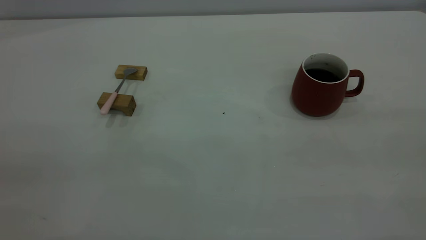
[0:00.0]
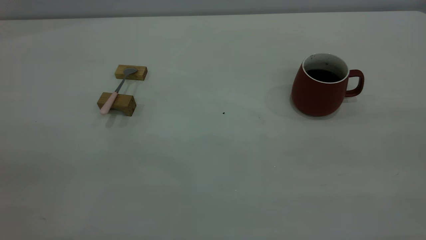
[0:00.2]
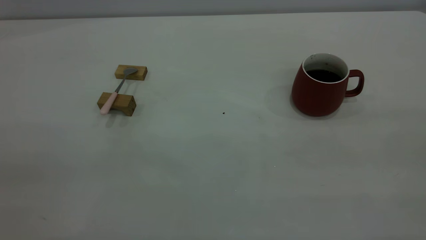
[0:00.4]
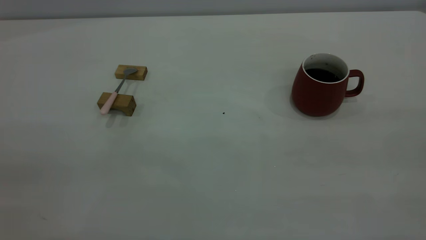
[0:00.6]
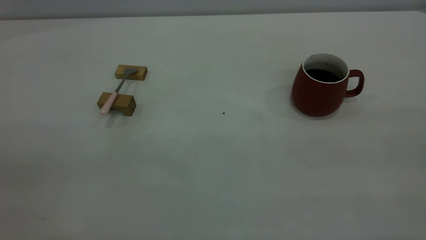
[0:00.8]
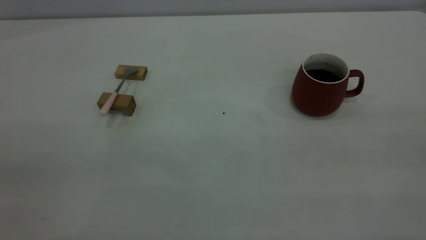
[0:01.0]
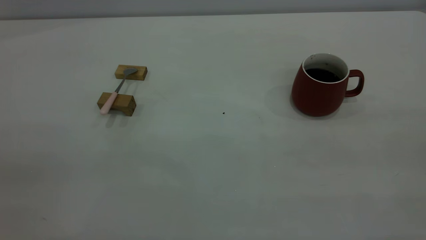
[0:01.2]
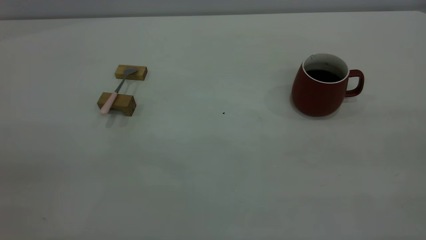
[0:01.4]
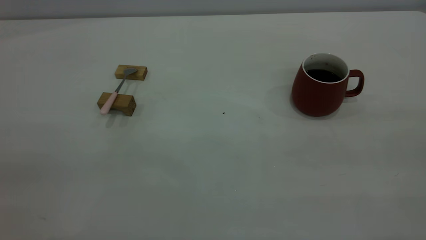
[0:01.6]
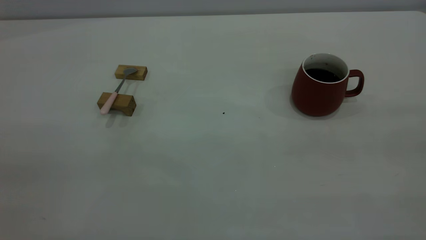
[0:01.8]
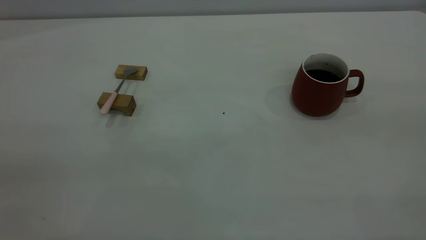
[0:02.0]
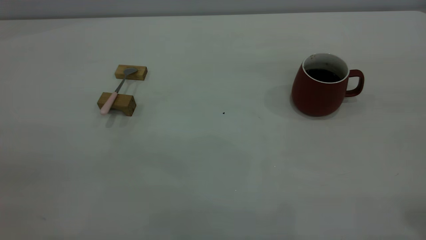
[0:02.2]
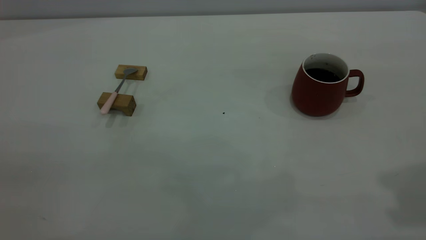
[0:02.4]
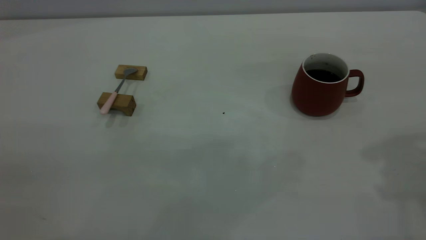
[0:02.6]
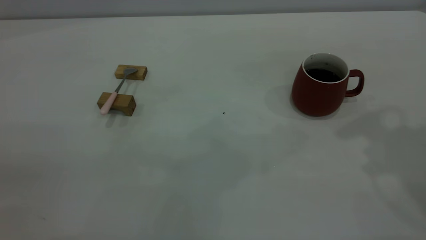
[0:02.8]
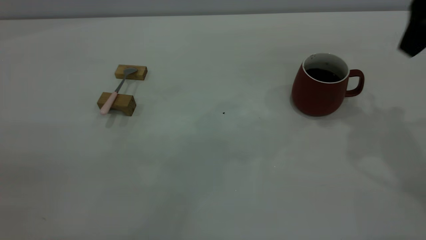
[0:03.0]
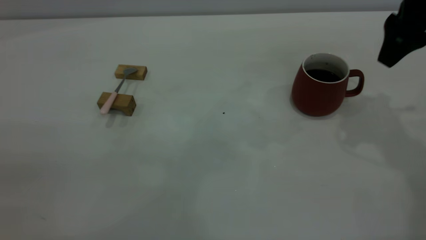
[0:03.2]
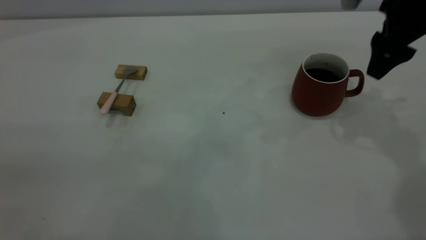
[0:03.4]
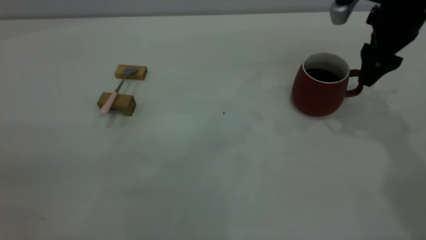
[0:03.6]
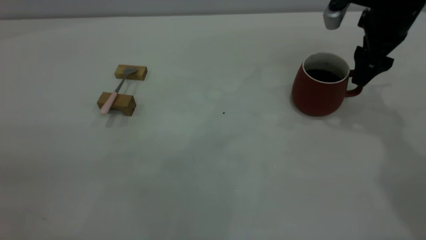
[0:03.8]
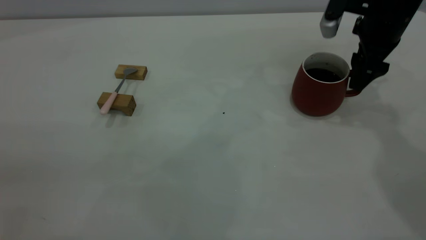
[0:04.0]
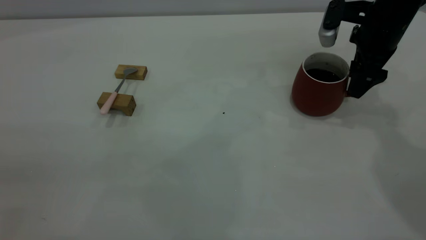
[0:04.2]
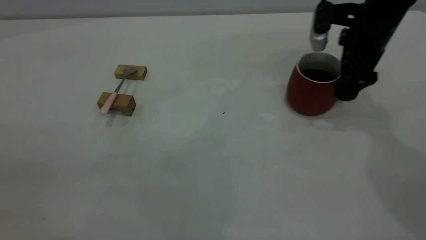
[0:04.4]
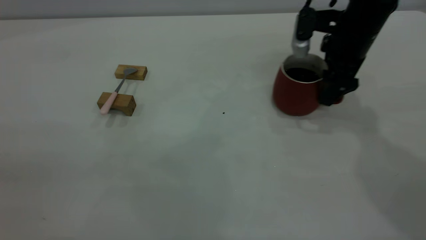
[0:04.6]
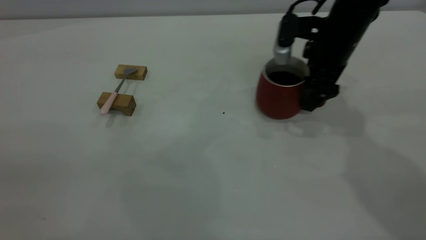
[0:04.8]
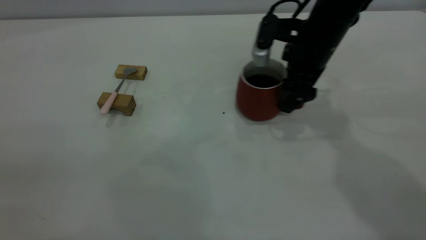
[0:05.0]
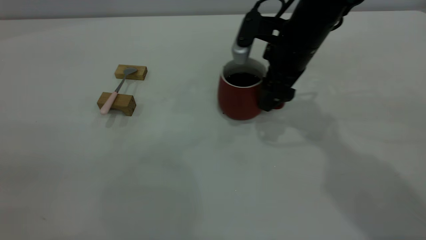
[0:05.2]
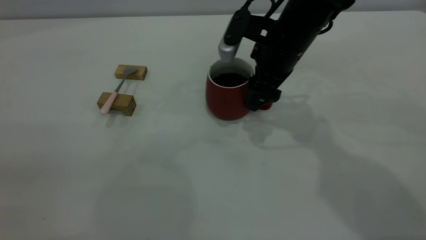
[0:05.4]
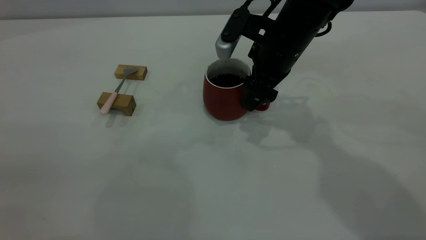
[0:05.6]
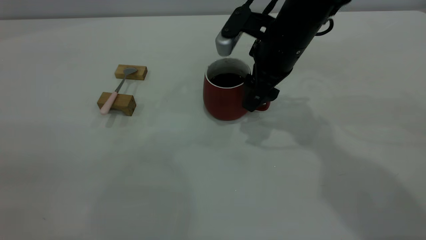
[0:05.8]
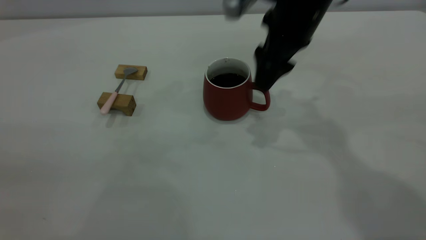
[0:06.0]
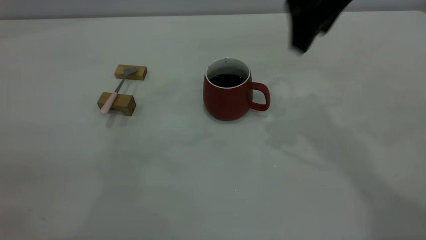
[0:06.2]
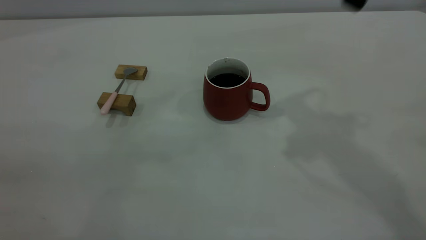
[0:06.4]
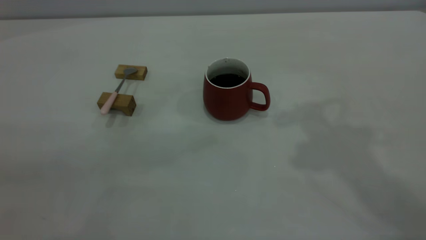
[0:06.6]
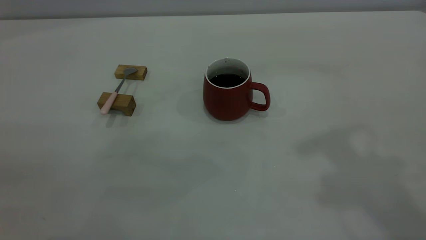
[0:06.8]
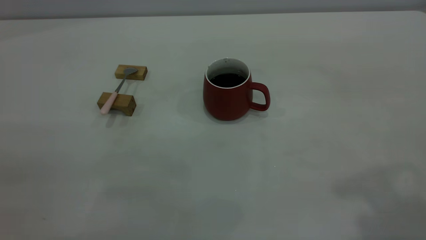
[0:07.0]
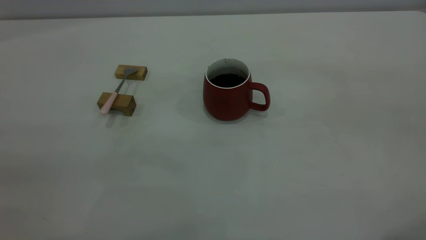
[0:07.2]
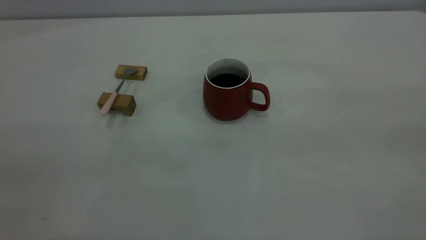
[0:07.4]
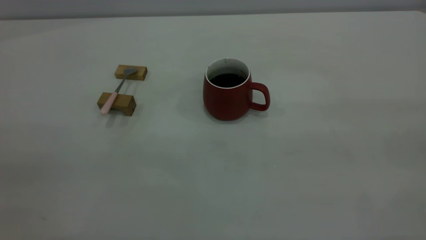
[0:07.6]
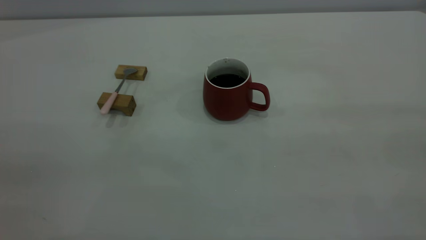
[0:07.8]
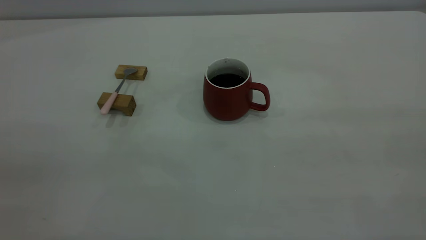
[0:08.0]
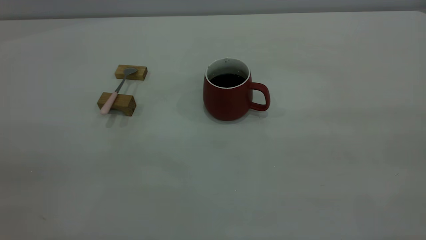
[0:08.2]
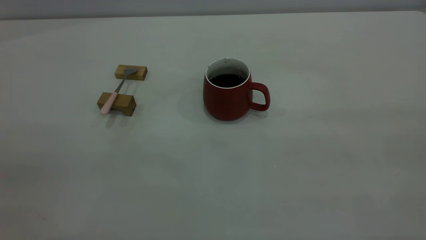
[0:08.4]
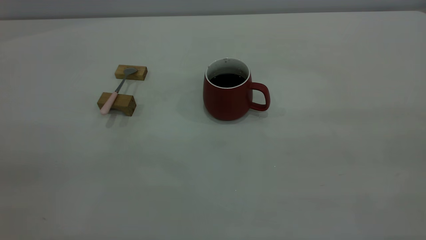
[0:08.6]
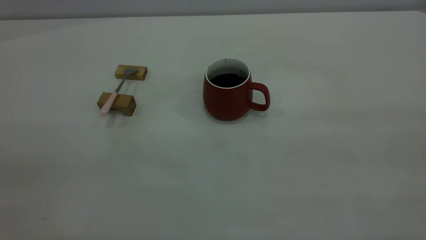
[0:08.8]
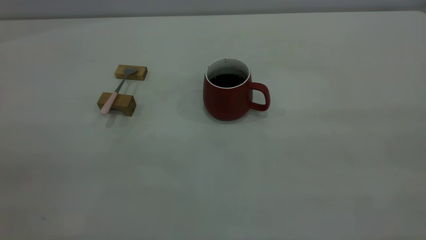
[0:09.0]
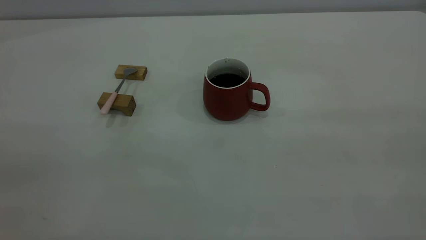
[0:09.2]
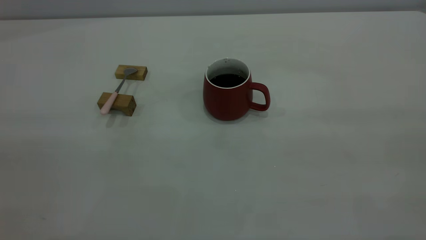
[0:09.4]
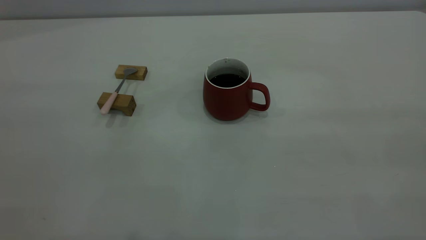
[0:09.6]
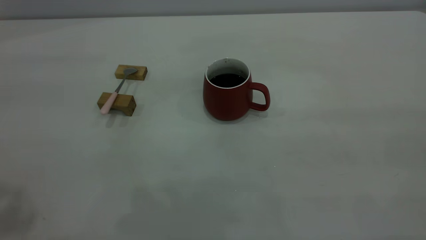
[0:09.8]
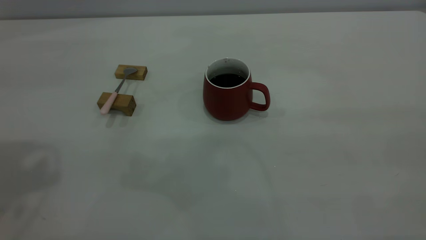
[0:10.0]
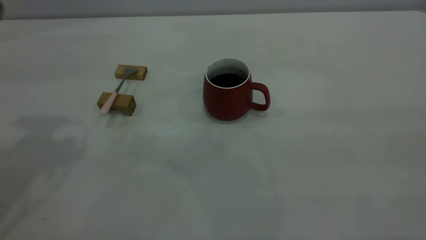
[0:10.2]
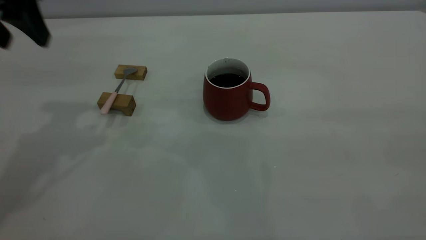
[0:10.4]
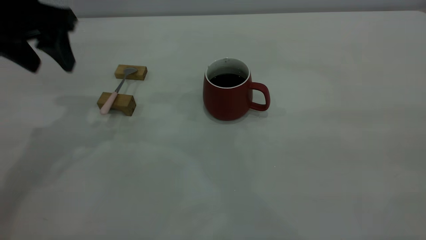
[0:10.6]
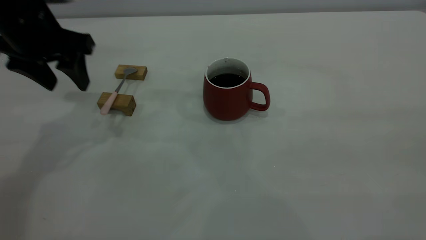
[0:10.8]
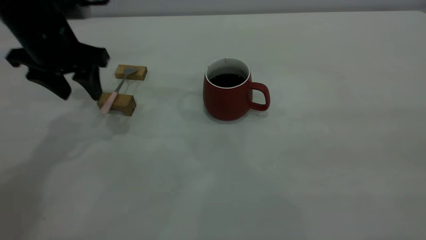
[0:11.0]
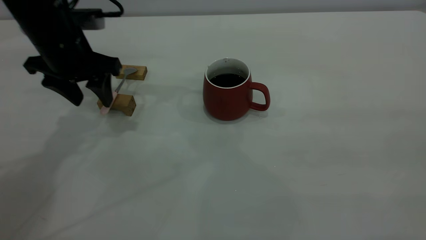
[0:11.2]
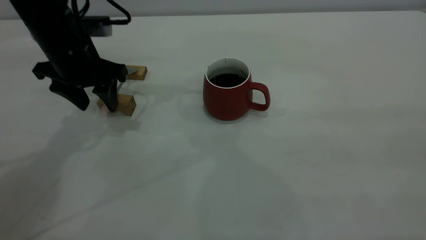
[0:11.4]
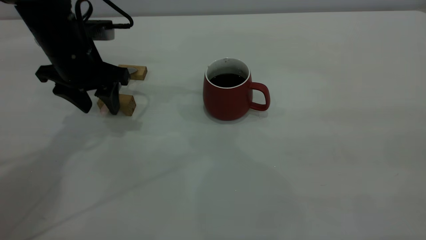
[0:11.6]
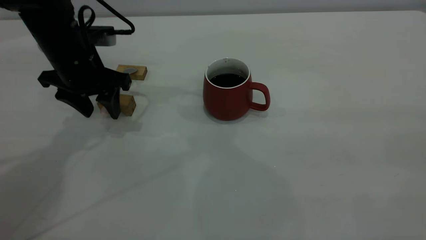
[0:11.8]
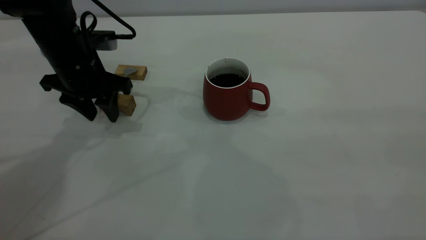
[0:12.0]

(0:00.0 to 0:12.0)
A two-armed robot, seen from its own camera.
Step, 0:00.0 - 0:06.0: Move the cup with coffee to the center of view.
0:00.0 - 0:01.6: The two grippers keep their place.
0:01.6 - 0:03.0: The right gripper goes approximately 35 cm forward.
0:03.0 - 0:04.4: The right gripper shifts some 15 cm downward and forward, and opens its fingers.
0:04.4 - 0:06.0: The right gripper travels to the left and upward by approximately 15 cm, and closes its fingers.
0:06.0 - 0:07.6: The right gripper moves backward, to the right and upward, about 40 cm.
0:09.0 - 0:10.4: The left gripper shifts about 35 cm forward, and opens.
0:10.4 - 0:12.0: The left gripper travels downward by about 15 cm, and closes.

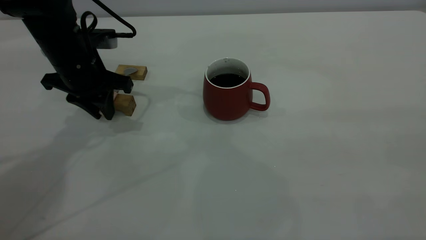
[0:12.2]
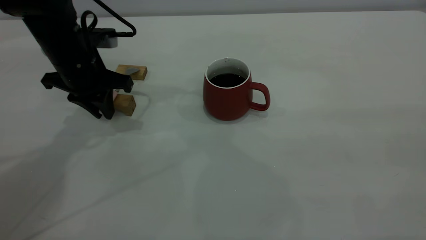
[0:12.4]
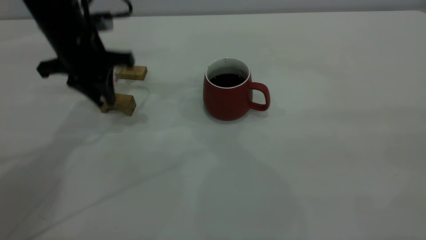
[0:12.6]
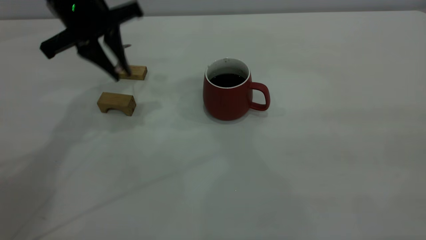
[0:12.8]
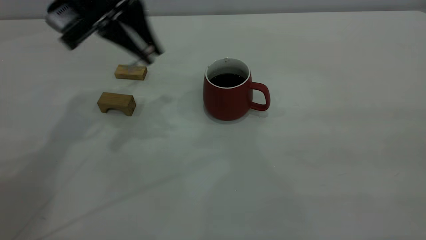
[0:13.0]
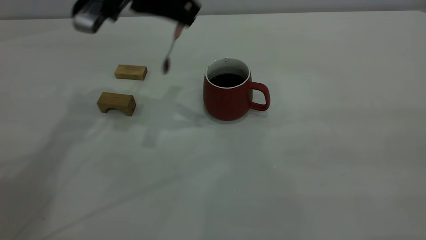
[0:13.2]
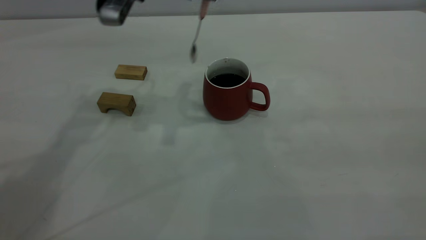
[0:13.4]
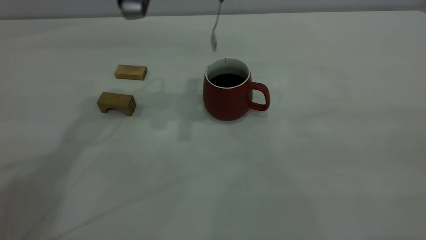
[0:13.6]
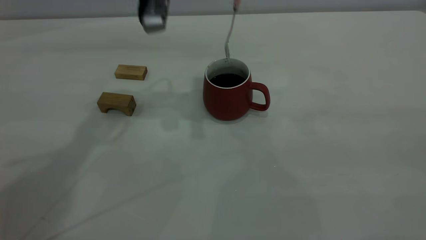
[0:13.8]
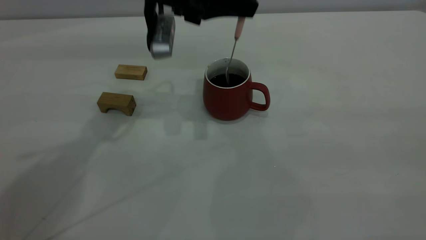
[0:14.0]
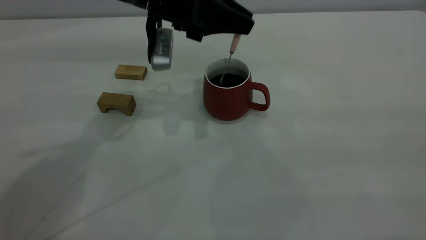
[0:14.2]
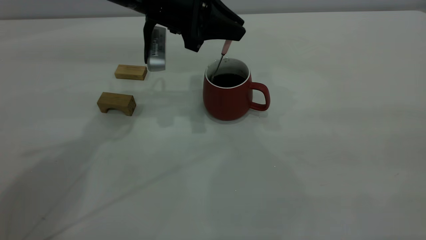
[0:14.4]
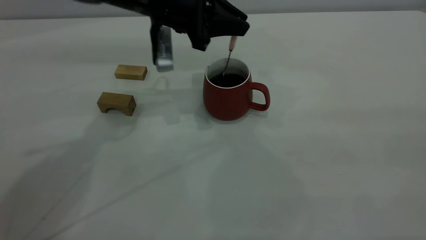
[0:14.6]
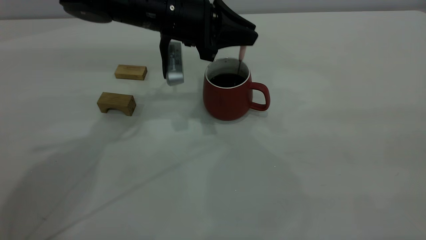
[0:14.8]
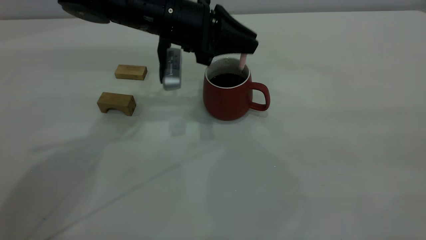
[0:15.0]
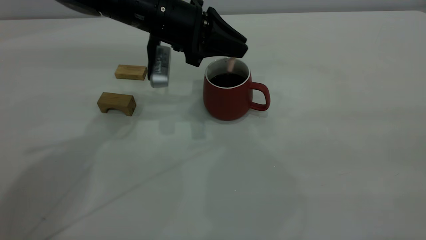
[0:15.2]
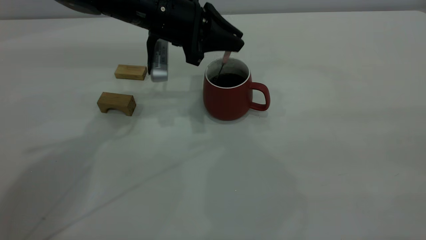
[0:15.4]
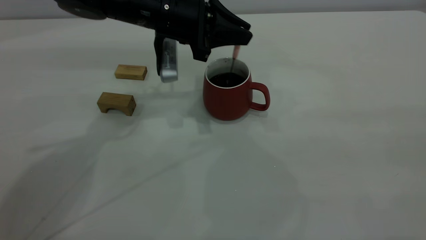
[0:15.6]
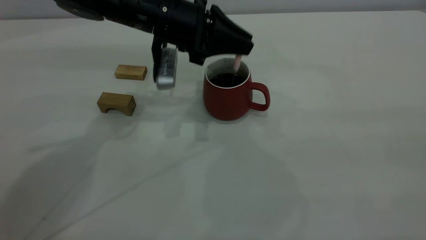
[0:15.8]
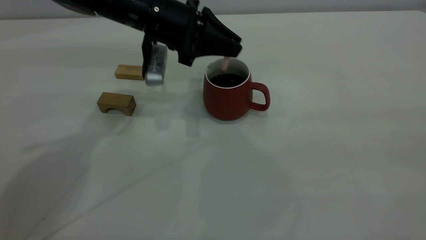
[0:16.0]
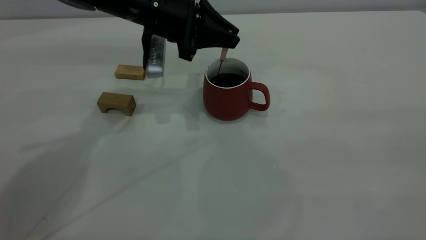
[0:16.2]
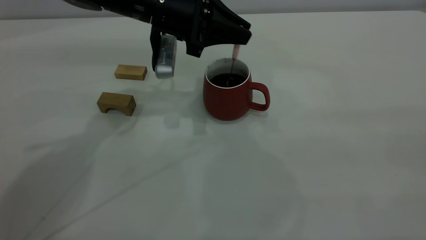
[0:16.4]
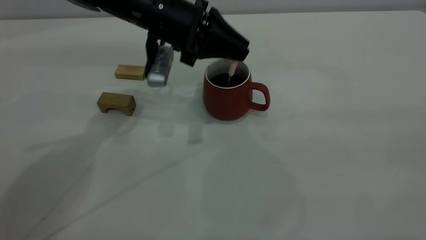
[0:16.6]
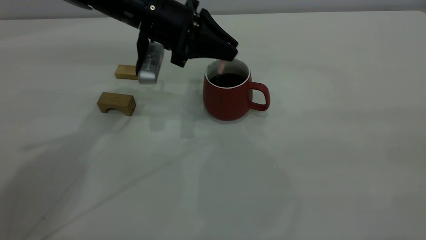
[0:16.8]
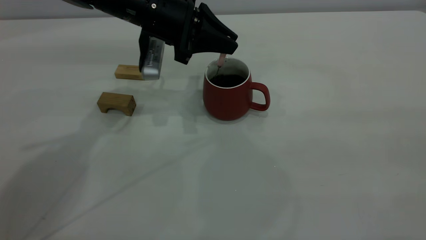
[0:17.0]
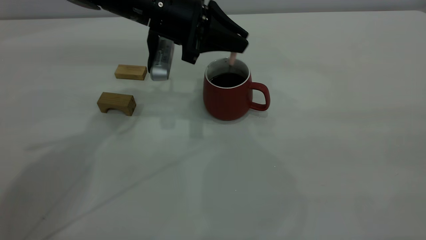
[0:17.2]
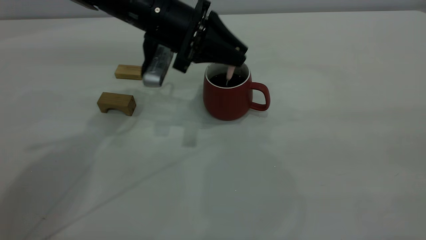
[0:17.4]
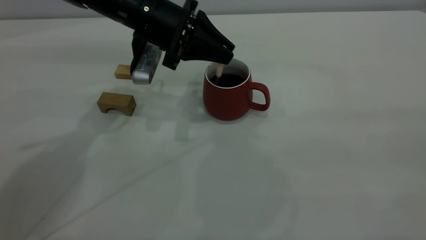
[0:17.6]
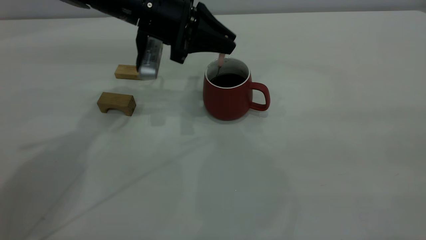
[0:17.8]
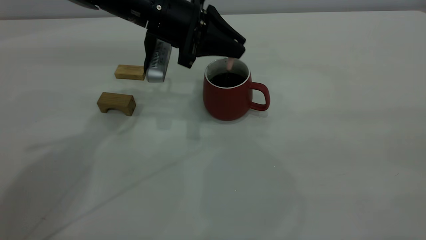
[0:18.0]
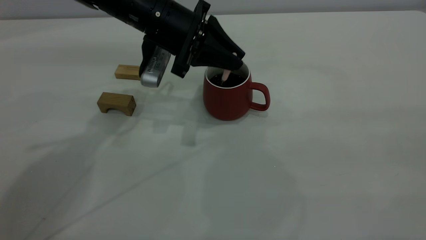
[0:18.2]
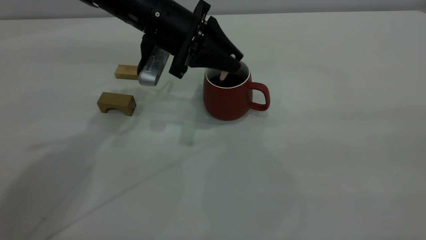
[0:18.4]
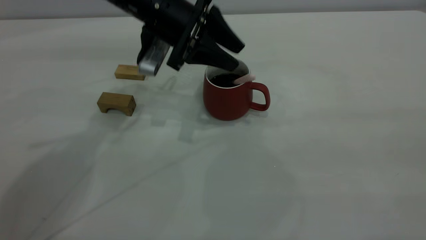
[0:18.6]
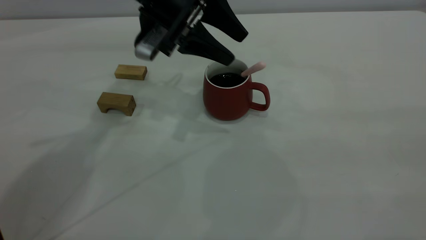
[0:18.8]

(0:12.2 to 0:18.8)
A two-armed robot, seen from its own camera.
Step, 0:12.8 - 0:18.8: Stir the coffee in the cup.
0:12.2 - 0:13.8: The left gripper moves to the right and upward, roughly 15 cm.
0:13.8 - 0:15.4: The left gripper moves downward, roughly 10 cm.
0:15.4 - 0:17.2: There are only small adjustments of the grippers.
0:17.2 - 0:18.8: The left gripper opens.
